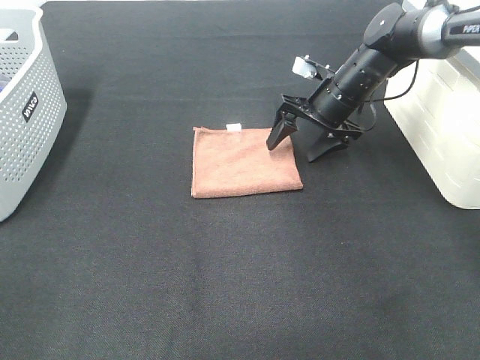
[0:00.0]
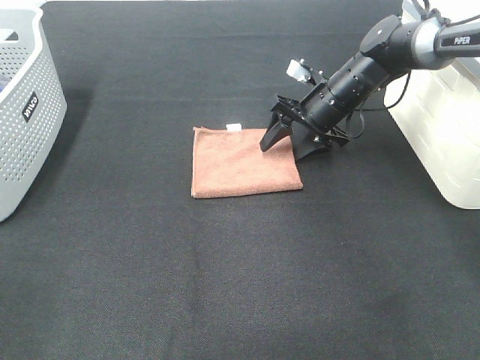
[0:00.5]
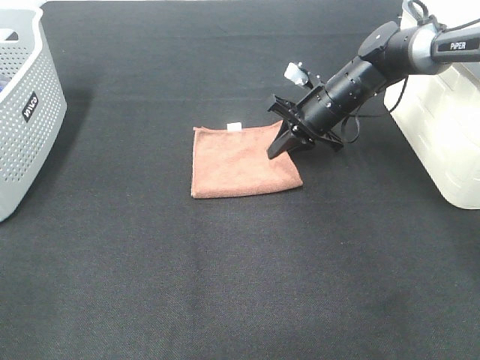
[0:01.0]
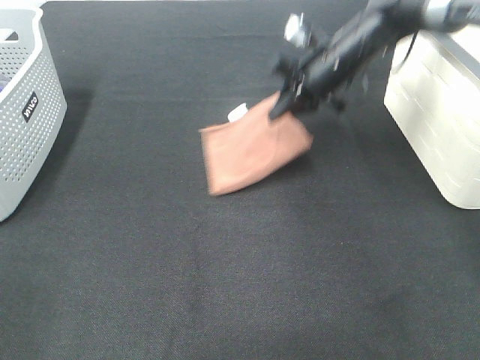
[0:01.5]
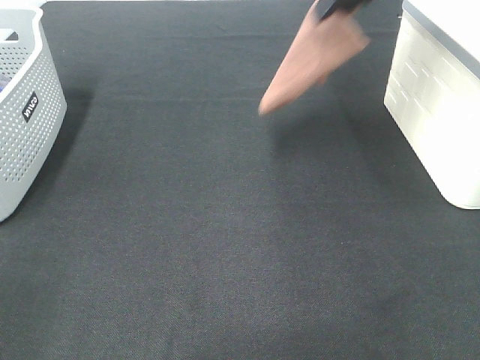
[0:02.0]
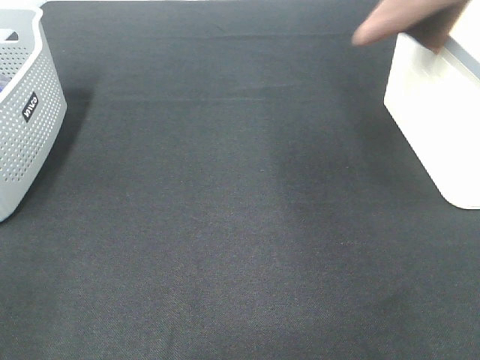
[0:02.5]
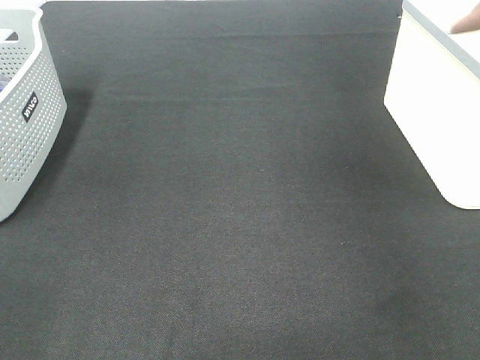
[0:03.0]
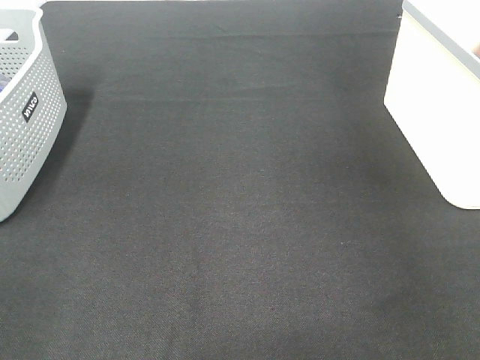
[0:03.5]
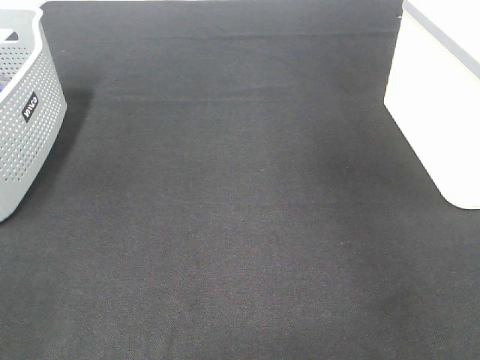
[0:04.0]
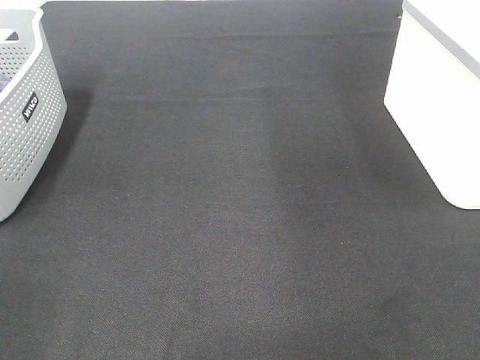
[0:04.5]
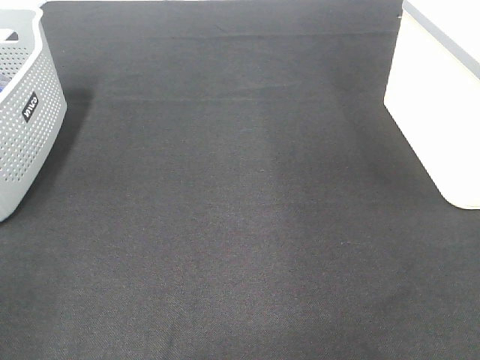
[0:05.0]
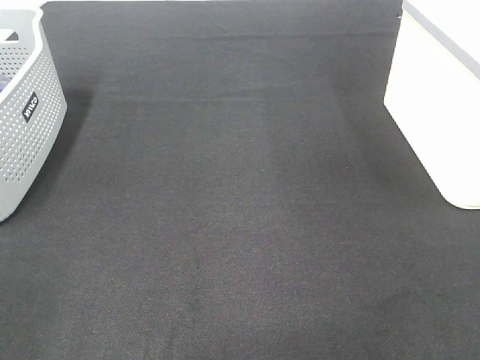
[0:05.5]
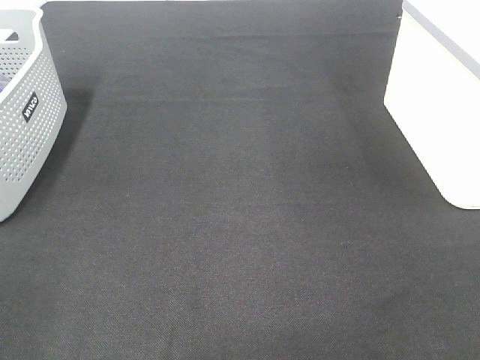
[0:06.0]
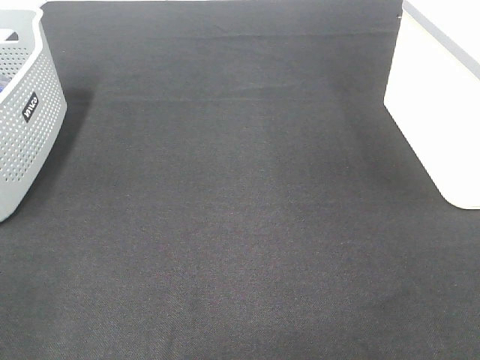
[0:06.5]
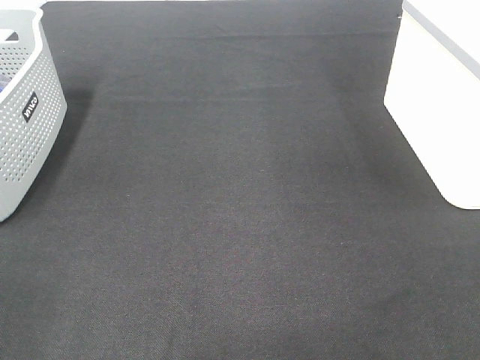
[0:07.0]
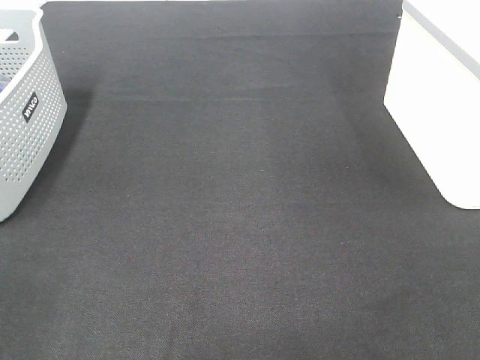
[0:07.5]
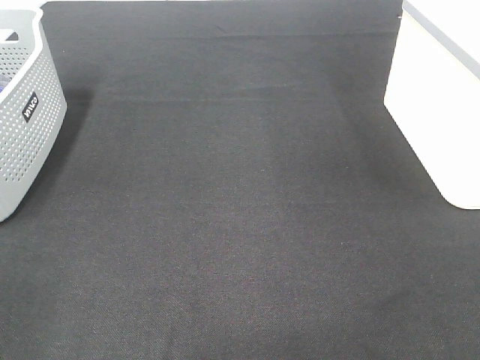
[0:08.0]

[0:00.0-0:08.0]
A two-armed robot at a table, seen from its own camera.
Step, 0:01.0 to 0:03.5: Right hand: place the brown towel in right basket.
0:00.0 to 0:02.0: The right gripper goes some 25 cm upward, and closes.
0:02.0 to 0:04.0: The right gripper heads to the right, covering some 15 cm, and opens up.

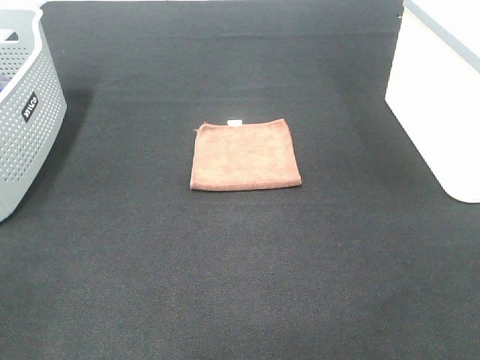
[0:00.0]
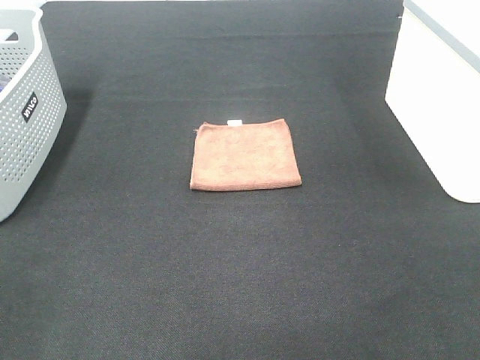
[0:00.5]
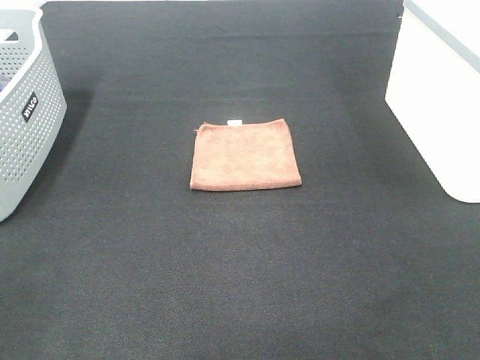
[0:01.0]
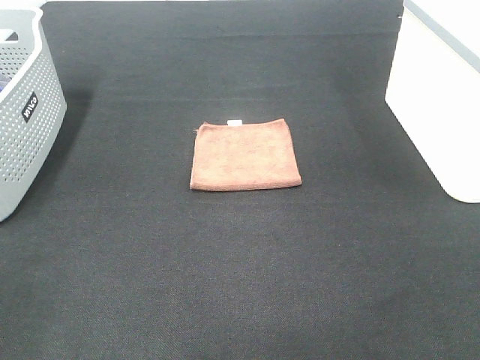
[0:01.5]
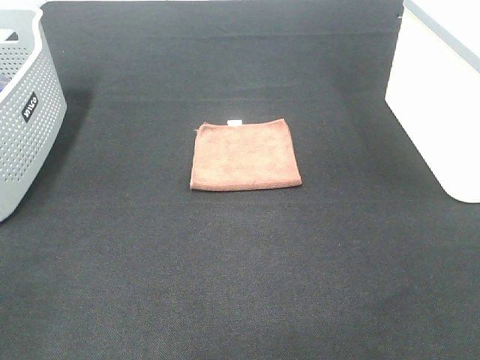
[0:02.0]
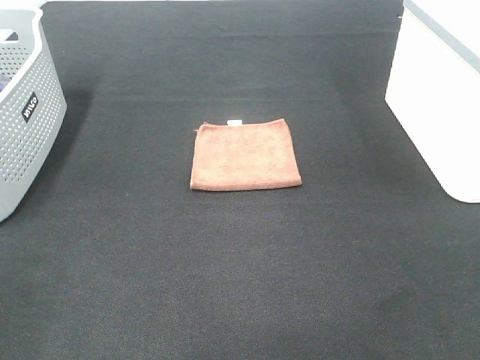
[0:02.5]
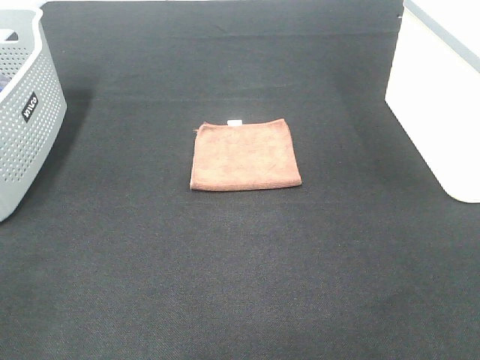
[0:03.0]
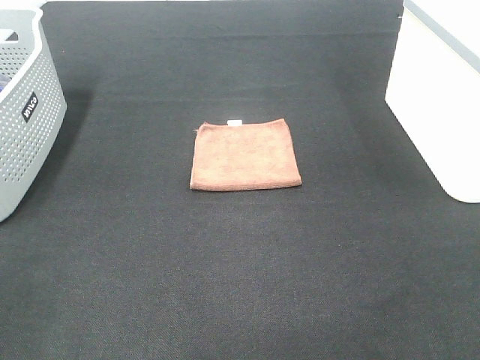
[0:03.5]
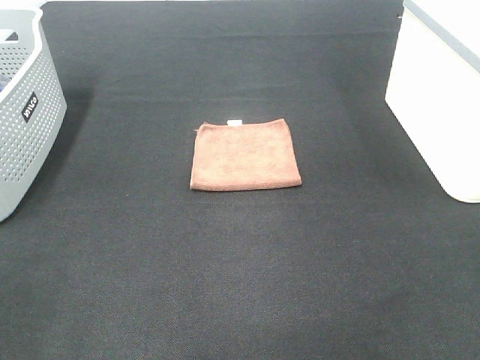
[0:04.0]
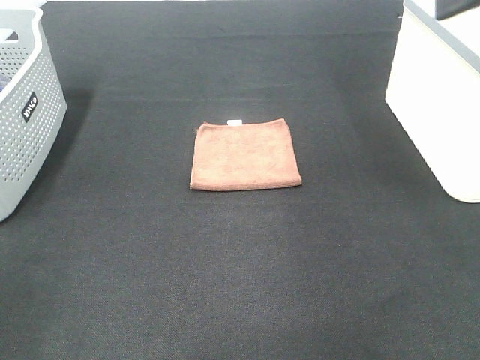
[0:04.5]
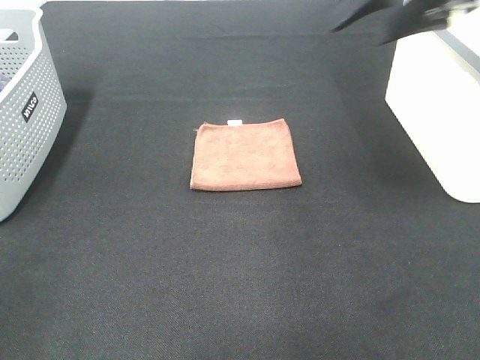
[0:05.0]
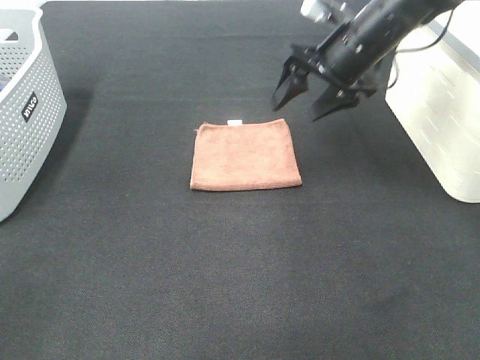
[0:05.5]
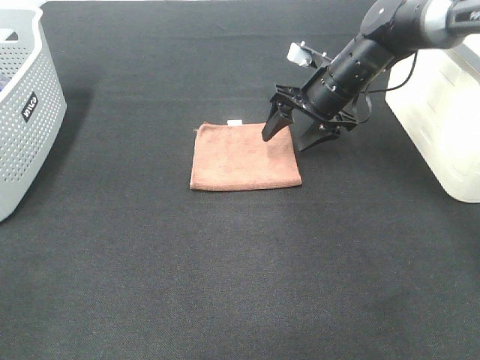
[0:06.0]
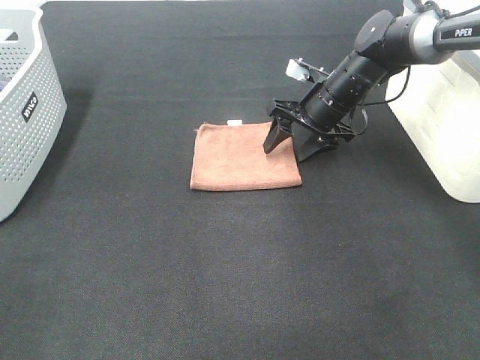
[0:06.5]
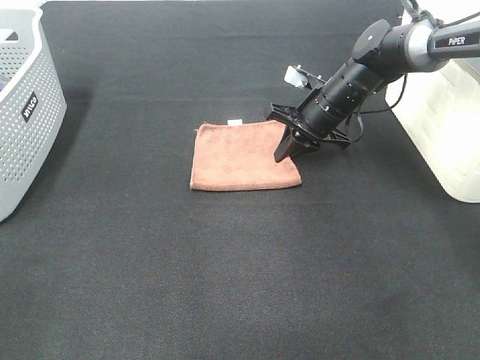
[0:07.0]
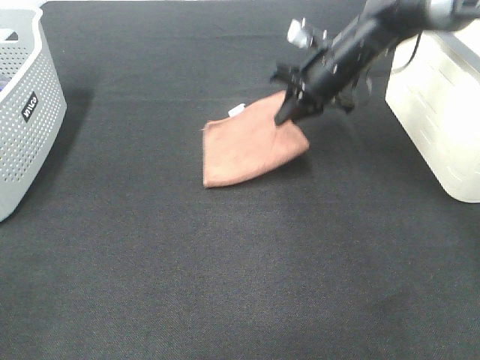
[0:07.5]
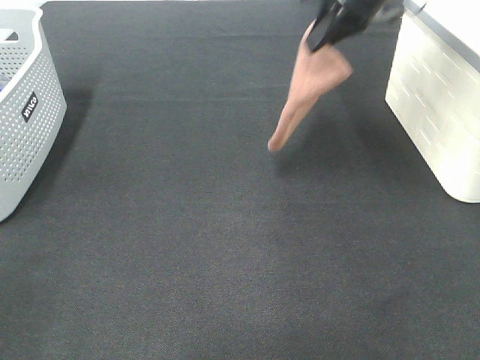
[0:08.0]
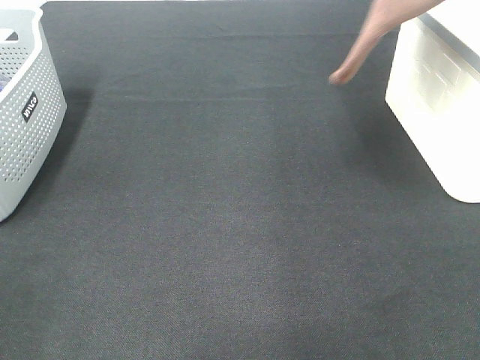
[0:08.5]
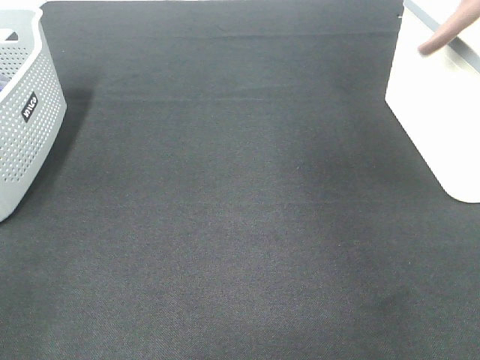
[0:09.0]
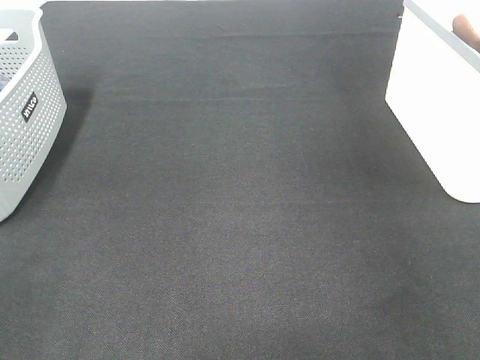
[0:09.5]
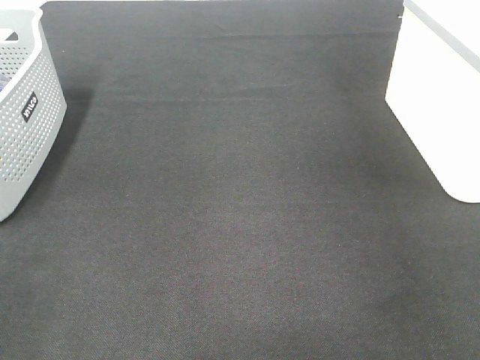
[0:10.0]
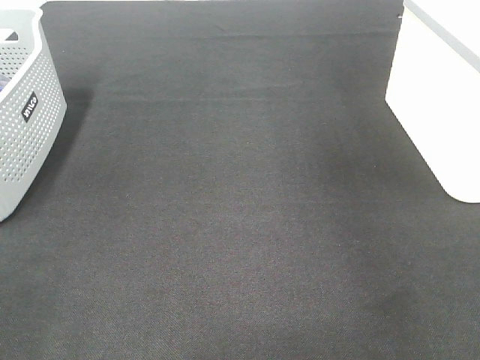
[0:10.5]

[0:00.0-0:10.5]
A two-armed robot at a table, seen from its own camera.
Step, 0:00.0 to 0:07.0: Right hand: grab the folded brown towel.
Step, 0:07.5 to 0:10.0: Right hand: place the brown towel in right basket.
0:00.0 to 0:02.0: The two grippers keep their place.
0:04.0 to 0:06.5: The right gripper moves forward and downward, some 40 cm.
0:06.5 to 0:08.5: The right gripper goes some 30 cm upward, and closes up.
0:08.5 to 0:10.5: The right gripper is displaced to the right by roughly 10 cm, and opens up.

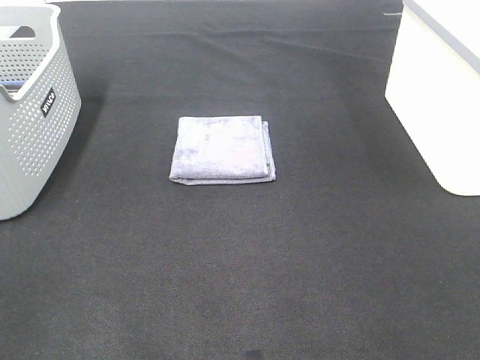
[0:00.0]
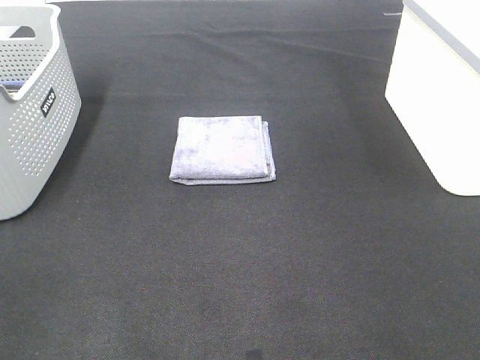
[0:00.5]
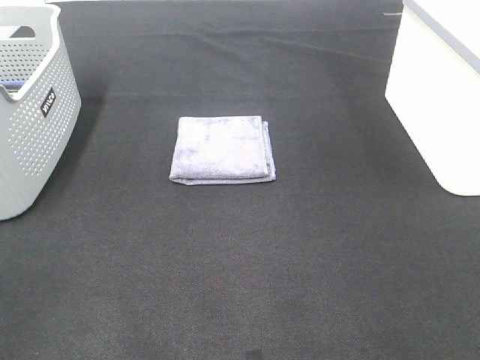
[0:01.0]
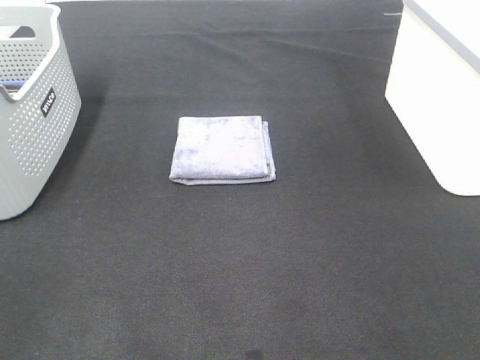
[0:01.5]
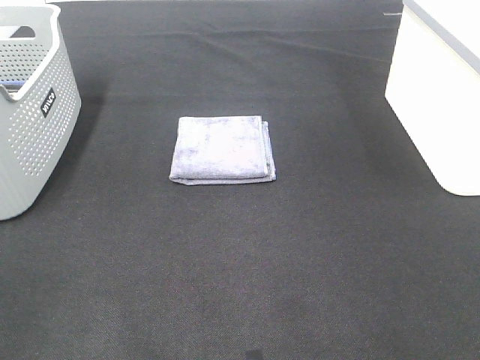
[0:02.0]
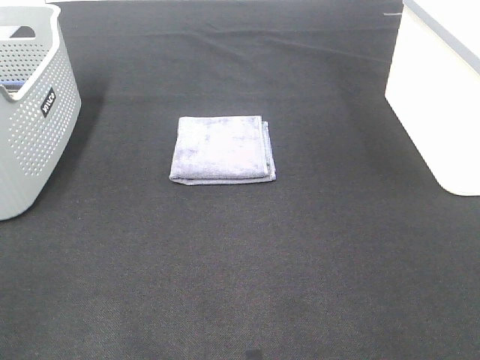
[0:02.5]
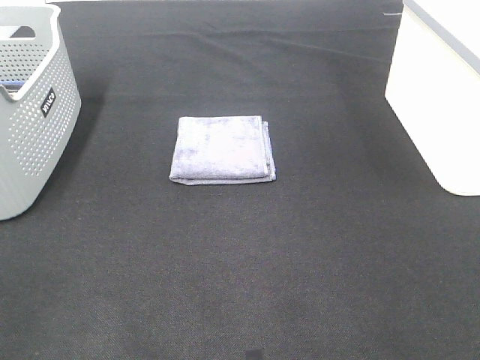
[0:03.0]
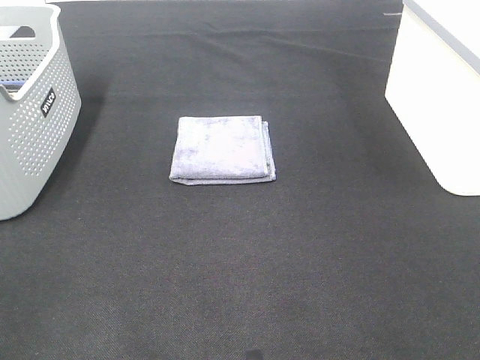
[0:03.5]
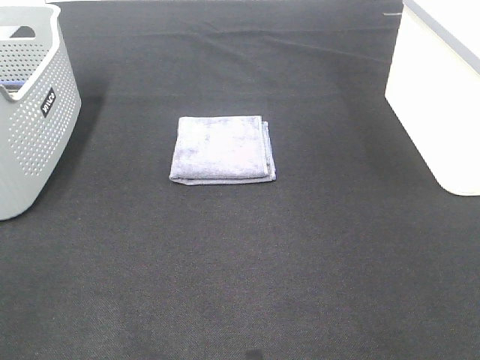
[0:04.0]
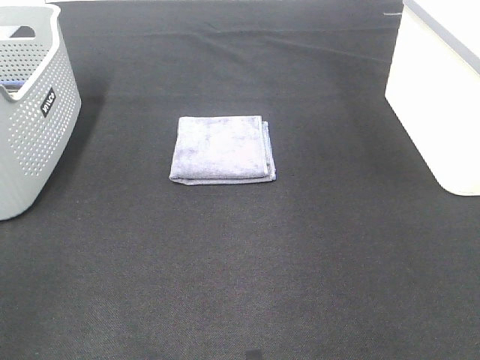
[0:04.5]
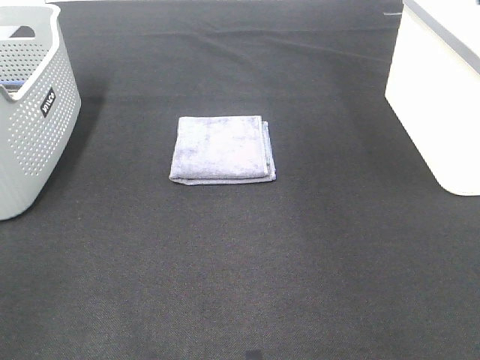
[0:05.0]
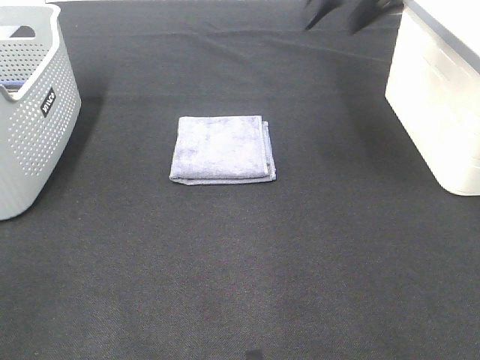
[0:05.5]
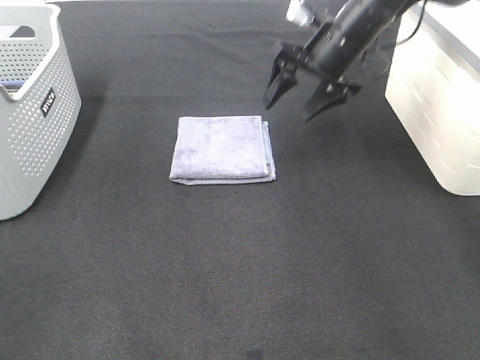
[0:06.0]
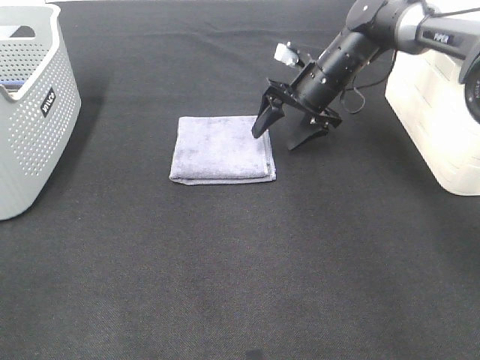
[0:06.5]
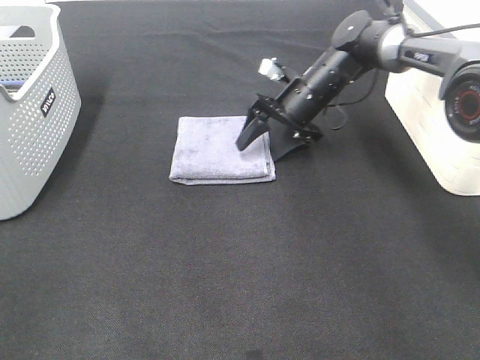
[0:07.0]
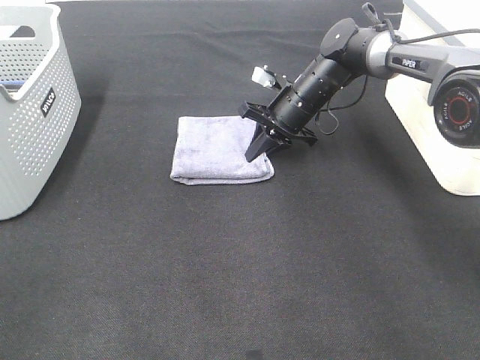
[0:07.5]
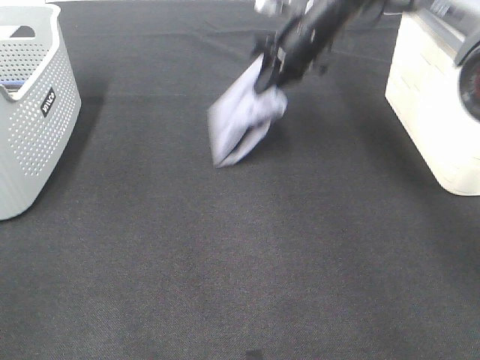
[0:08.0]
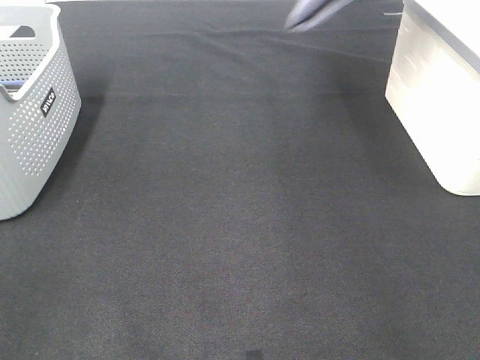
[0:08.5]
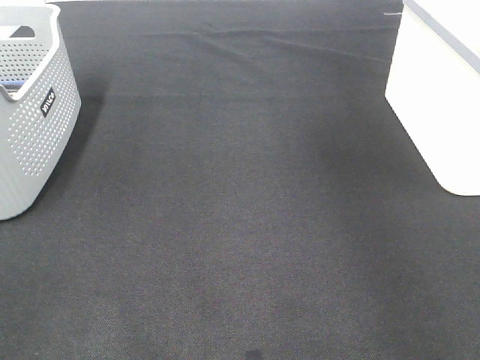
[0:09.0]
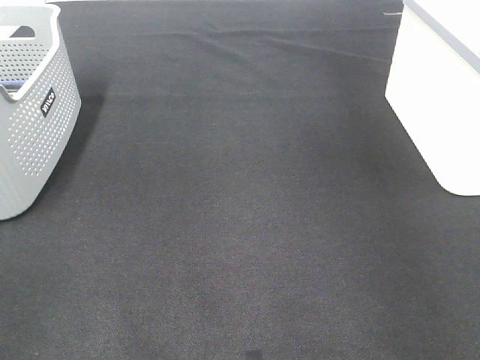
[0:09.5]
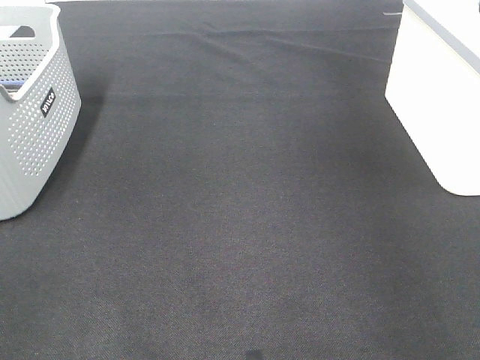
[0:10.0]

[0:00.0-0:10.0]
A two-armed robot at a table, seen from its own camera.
Step, 0:00.0 to 0:07.0: Right hand: grab the folded grey towel.
Step, 0:07.5 to 0:09.5: Right hand: place the grey towel in right basket.
0:00.0 to 0:02.0: The two grippers keep their place.
0:04.0 to 0:06.0: The right gripper shifts roughly 40 cm forward and to the left.
0:06.0 to 0:08.0: The right gripper goes downward and returns, about 10 cm each way, and closes up.
0:08.0 to 0:10.0: The right gripper goes some 30 cm to the right and upward, and opens its fingers.
